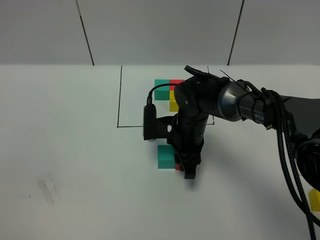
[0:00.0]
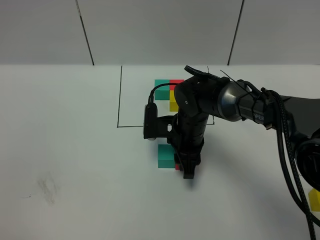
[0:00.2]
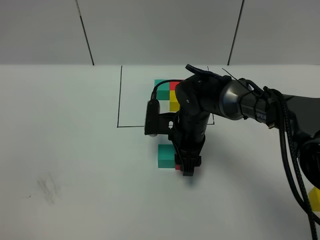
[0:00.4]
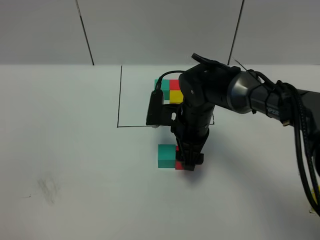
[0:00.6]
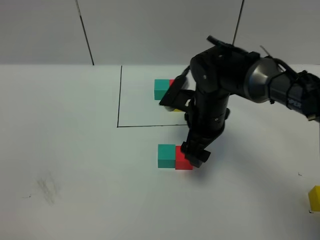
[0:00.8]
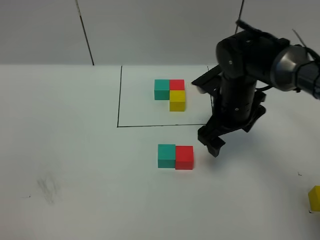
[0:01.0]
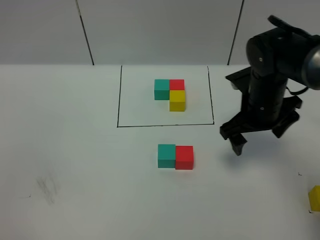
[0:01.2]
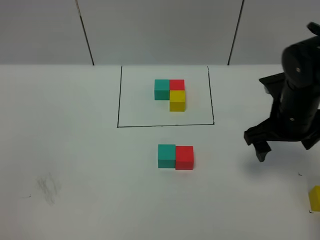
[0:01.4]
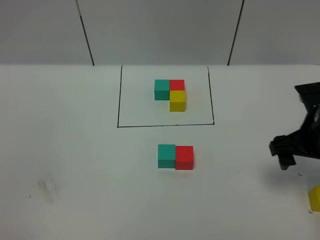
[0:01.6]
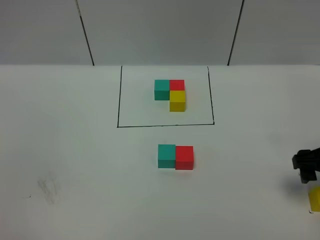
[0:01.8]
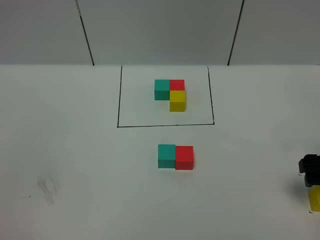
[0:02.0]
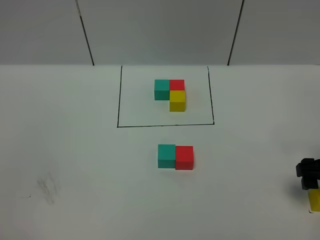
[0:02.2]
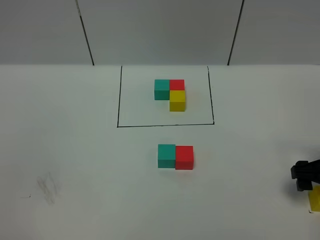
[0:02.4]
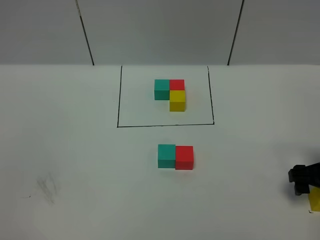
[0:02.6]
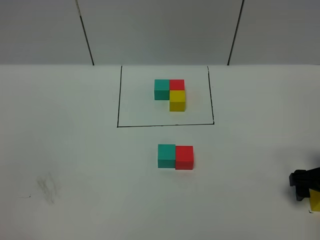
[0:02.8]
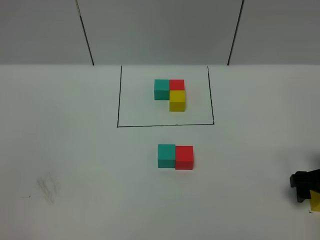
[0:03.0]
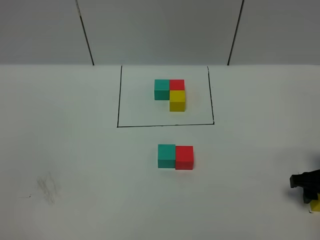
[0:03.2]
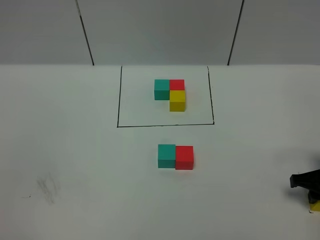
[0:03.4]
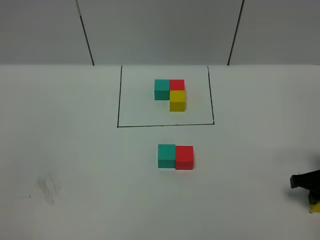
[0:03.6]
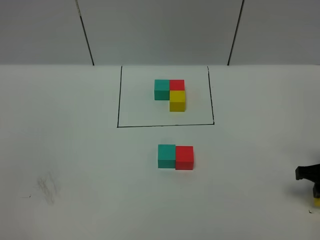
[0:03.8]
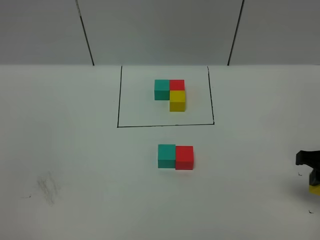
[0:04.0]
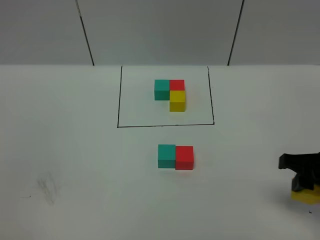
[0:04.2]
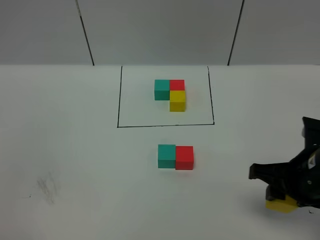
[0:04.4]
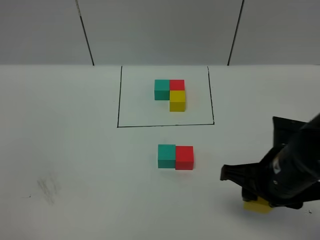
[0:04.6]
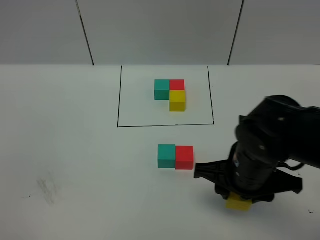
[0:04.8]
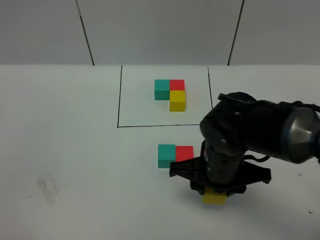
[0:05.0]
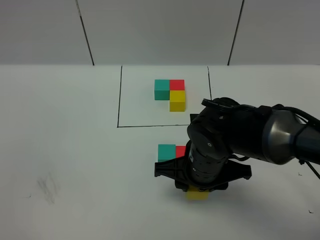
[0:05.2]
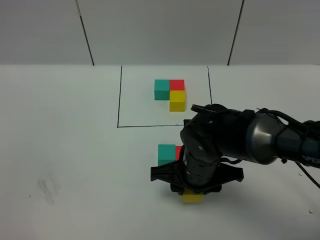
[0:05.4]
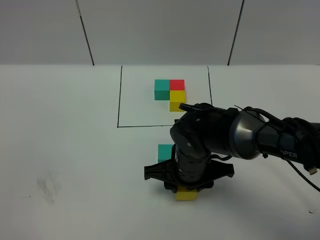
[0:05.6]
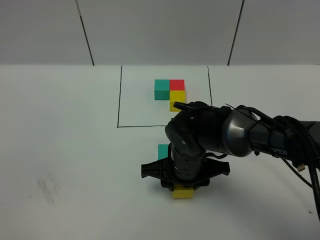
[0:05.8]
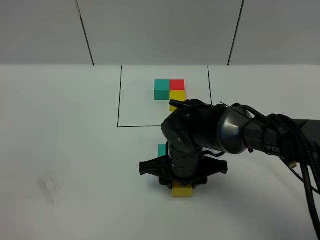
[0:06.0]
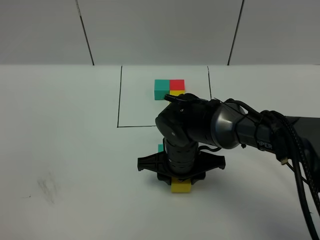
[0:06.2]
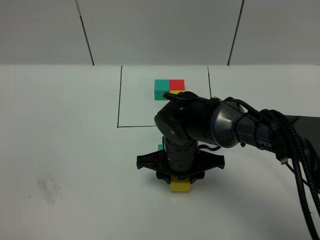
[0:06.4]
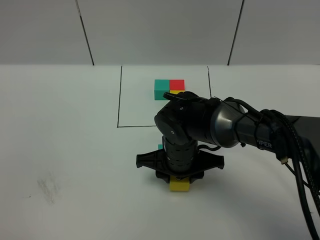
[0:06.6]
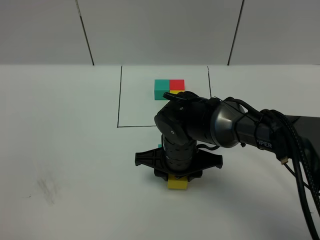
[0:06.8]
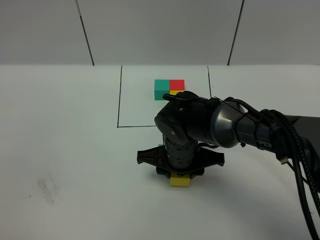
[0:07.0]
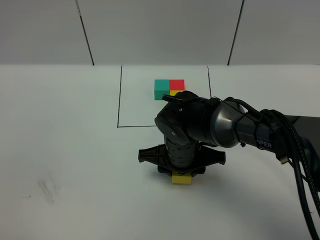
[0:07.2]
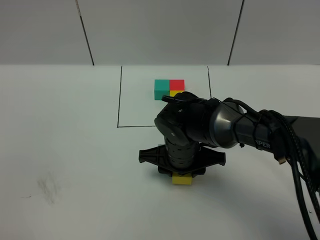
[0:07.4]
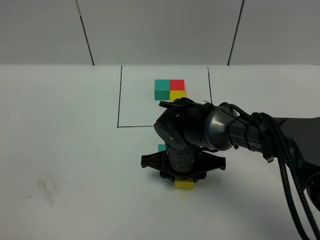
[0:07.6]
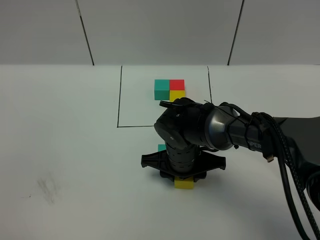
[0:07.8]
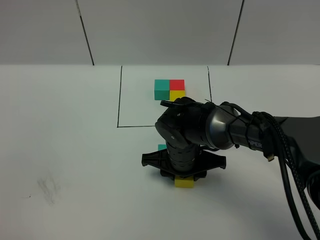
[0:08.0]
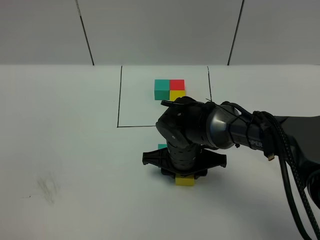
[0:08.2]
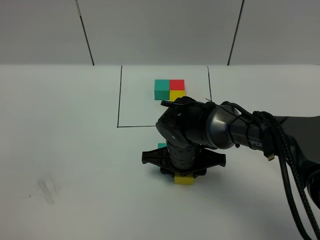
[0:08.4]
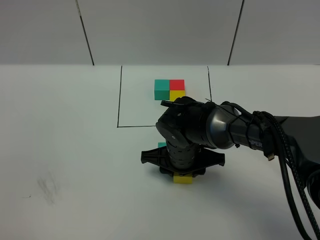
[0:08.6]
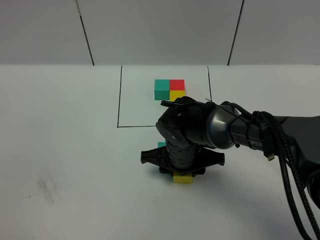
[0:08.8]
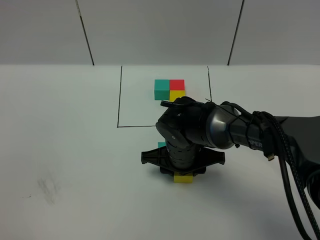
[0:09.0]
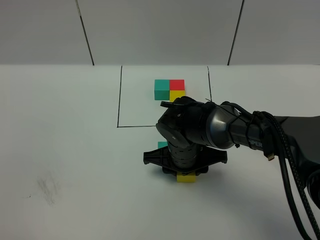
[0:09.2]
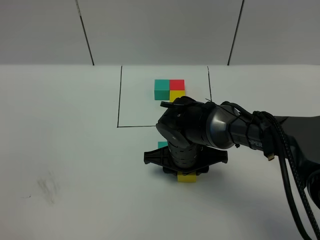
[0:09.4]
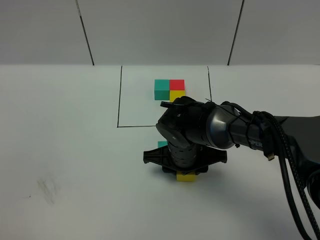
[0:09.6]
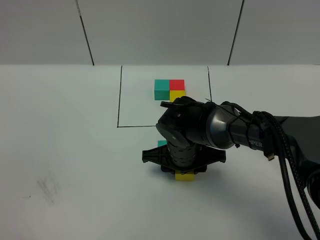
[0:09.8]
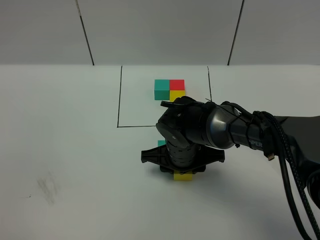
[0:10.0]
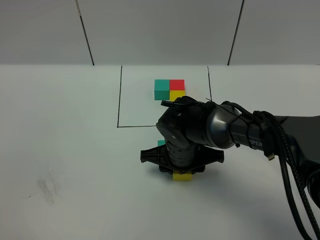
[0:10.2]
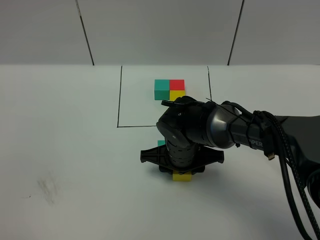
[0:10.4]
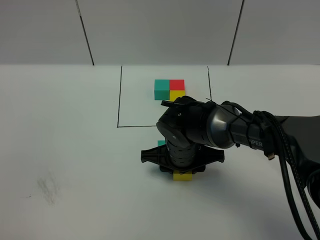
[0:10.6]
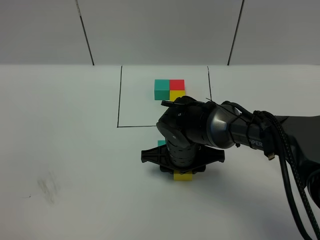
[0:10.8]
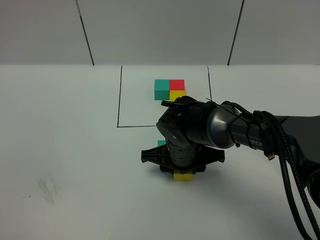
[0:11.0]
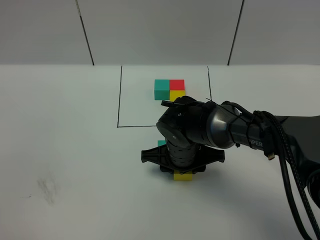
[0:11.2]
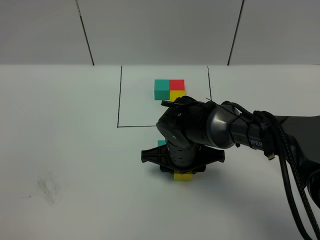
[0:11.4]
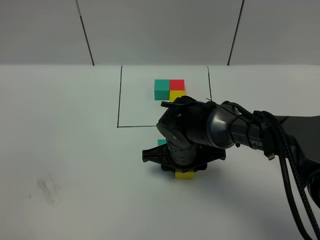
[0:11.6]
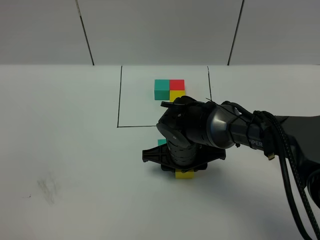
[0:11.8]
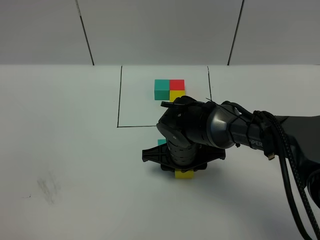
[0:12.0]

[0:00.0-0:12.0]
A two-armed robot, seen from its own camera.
Task of the whole recording: According to the building block template in front, assemble the scattered blocks together.
0:00.0 to 0:01.6: The right gripper travels to the right and upward by approximately 25 cm, and opens its fingers.
0:01.6 to 0:03.0: The right gripper is displaced downward and to the right by some 10 cm.
0:03.0 to 0:04.4: The right gripper shifts roughly 15 cm to the left, upward and backward, and closes its fingers.
0:04.4 to 0:06.0: The right gripper heads to the left and downward, covering approximately 20 cm.
0:06.0 to 0:07.6: The grippers move only a little.
0:07.6 to 0:09.0: Neither gripper changes place.
0:09.0 to 0:12.0: Both grippers stay about where they are.

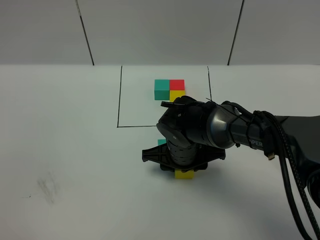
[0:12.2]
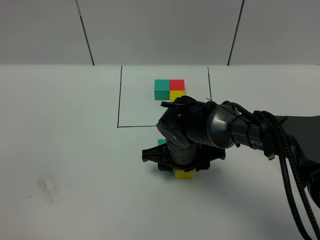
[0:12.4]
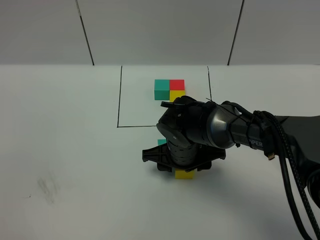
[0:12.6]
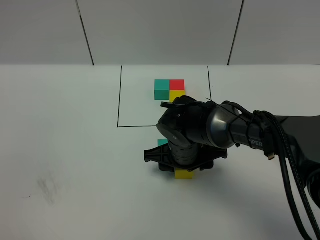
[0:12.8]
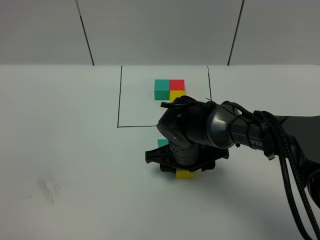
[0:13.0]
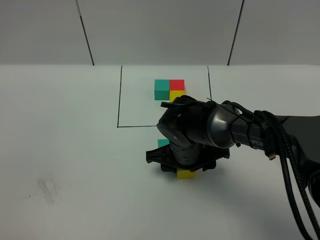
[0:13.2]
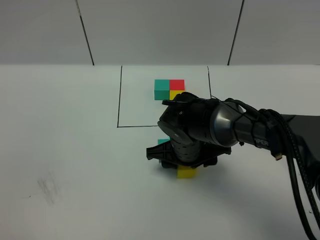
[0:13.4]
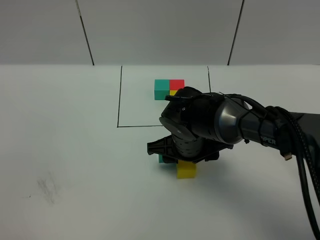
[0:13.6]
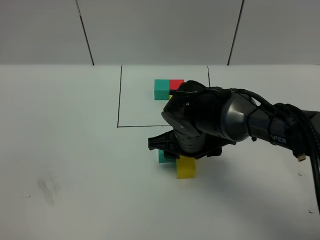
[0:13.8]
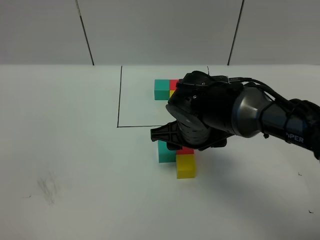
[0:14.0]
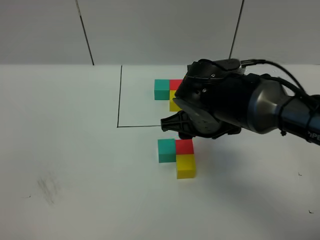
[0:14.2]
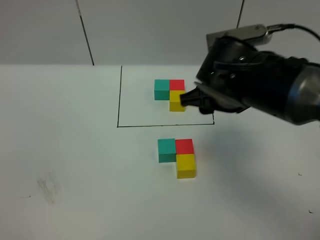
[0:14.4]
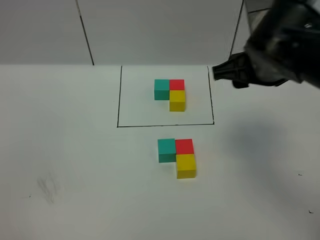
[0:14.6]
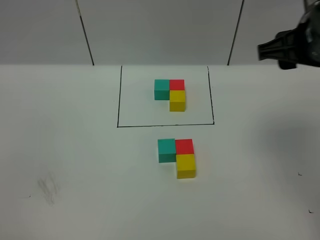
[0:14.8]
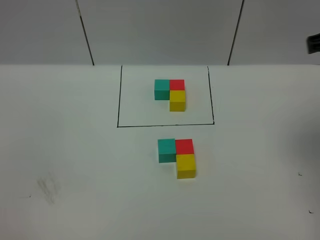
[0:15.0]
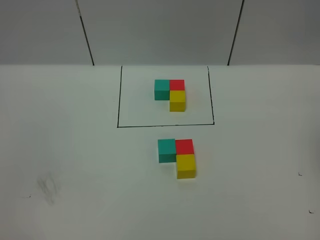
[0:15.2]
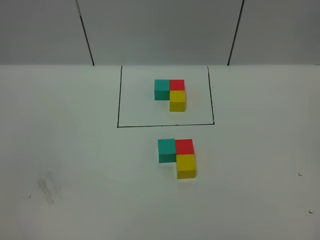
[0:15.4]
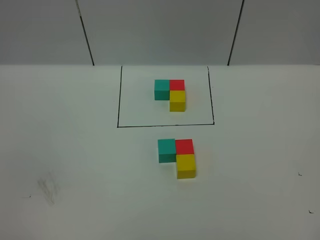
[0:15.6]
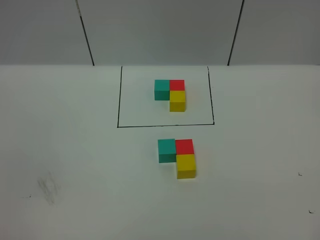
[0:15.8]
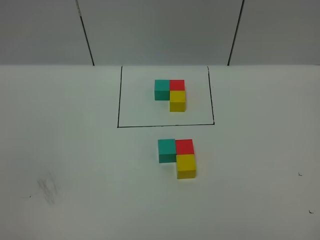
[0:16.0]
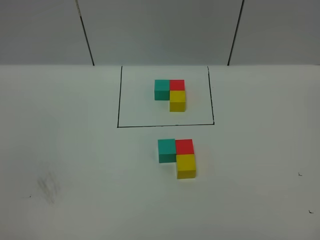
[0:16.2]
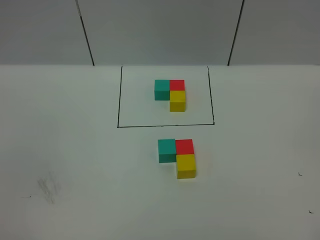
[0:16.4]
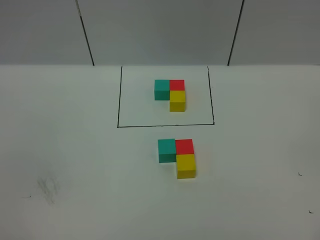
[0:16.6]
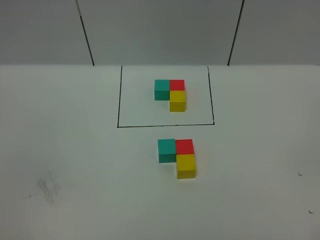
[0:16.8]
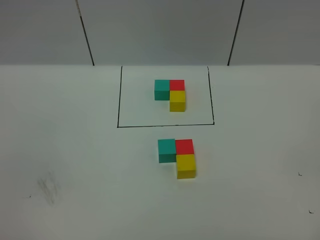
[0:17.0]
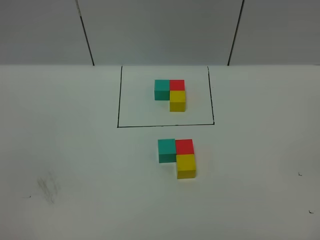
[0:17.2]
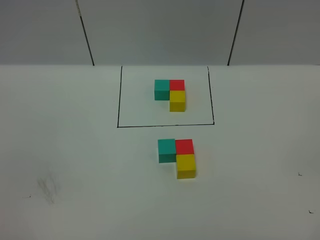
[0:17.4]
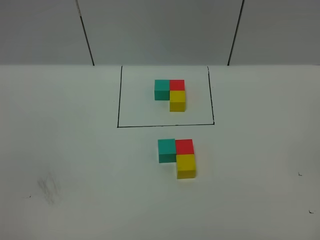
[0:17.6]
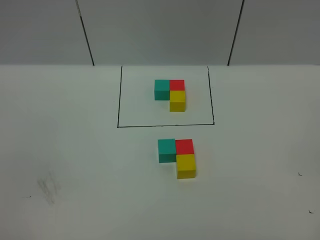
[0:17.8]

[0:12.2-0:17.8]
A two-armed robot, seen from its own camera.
Task of the whole recording: According to the building block template in front, assemble the scattered blocks together.
0:12.2 to 0:13.6: The grippers move only a little.
0:13.6 to 0:15.0: The right gripper is displaced upward and to the right by approximately 35 cm.
0:15.0 to 0:16.4: The right gripper moves backward, some 30 cm, and opens up.
